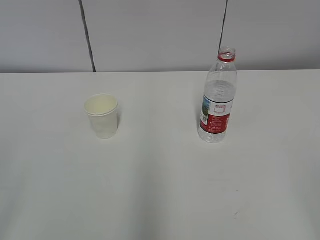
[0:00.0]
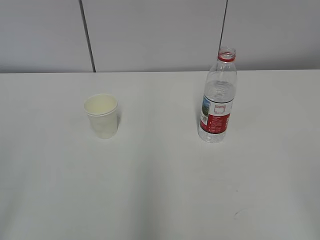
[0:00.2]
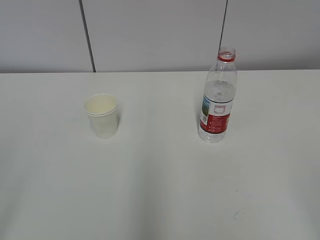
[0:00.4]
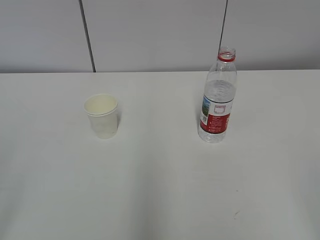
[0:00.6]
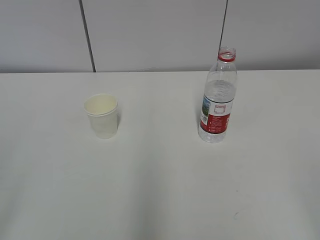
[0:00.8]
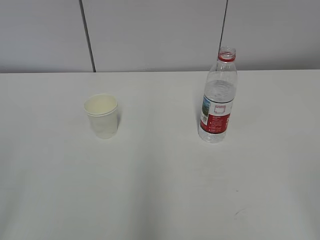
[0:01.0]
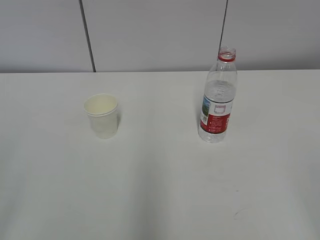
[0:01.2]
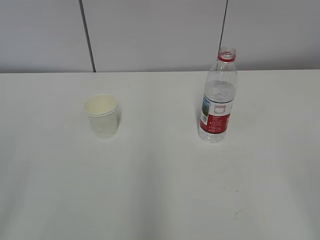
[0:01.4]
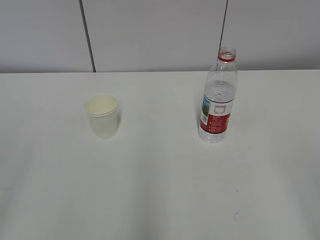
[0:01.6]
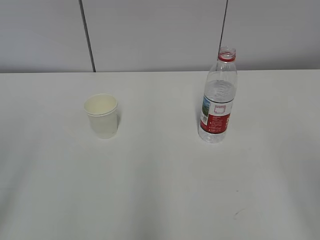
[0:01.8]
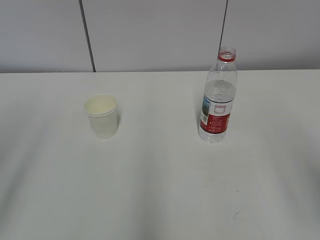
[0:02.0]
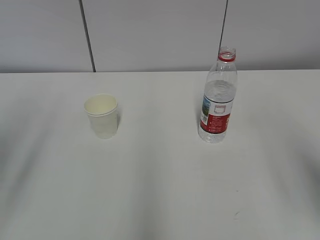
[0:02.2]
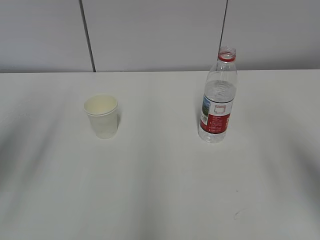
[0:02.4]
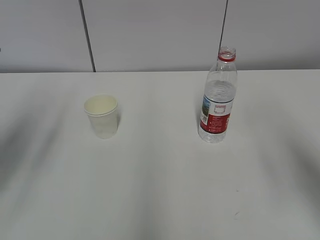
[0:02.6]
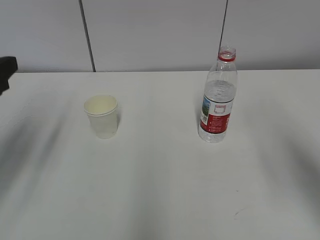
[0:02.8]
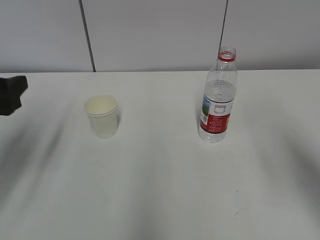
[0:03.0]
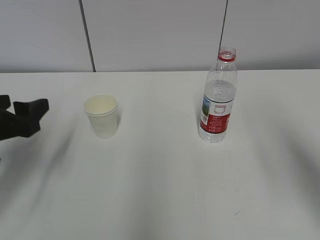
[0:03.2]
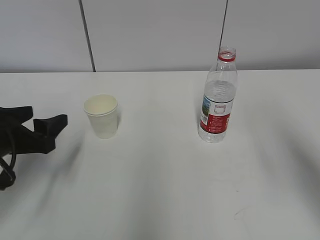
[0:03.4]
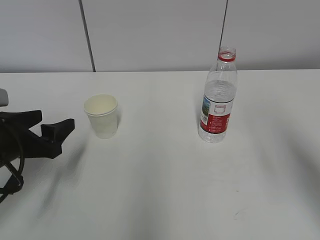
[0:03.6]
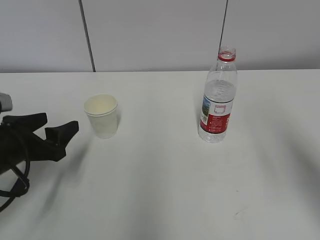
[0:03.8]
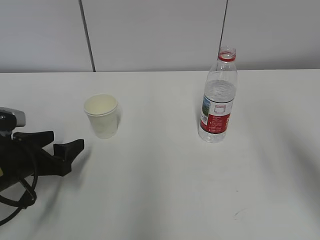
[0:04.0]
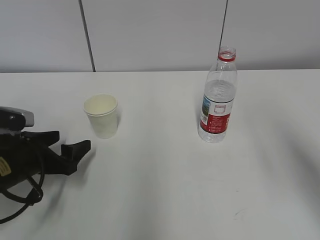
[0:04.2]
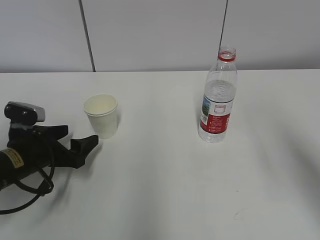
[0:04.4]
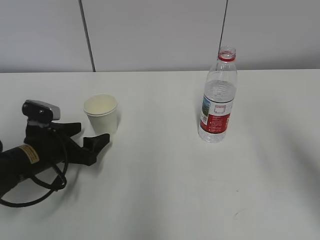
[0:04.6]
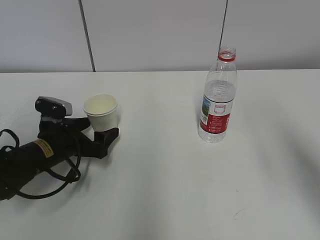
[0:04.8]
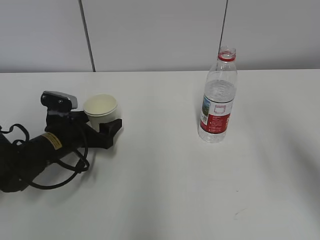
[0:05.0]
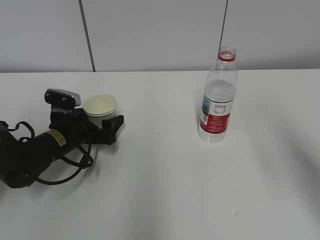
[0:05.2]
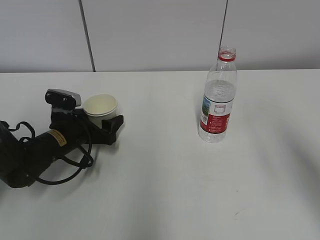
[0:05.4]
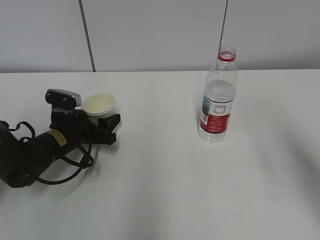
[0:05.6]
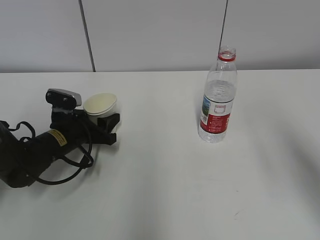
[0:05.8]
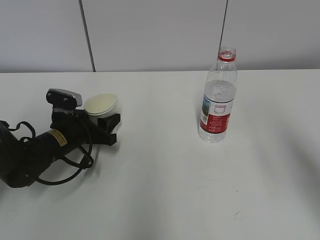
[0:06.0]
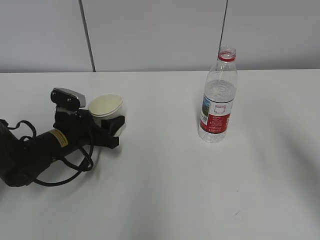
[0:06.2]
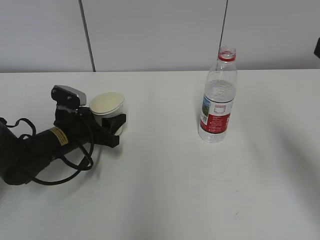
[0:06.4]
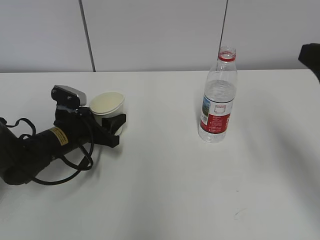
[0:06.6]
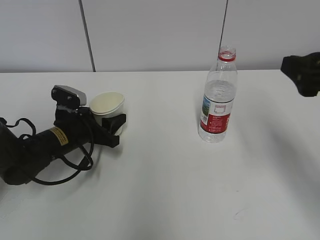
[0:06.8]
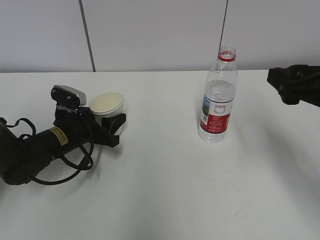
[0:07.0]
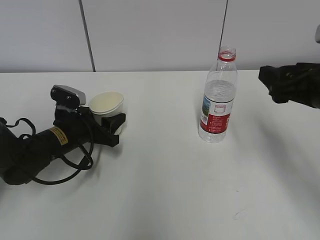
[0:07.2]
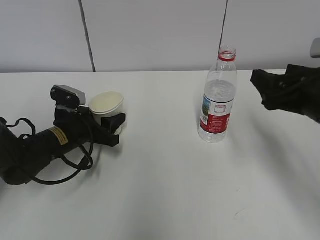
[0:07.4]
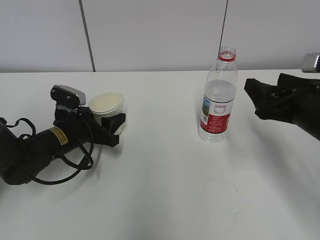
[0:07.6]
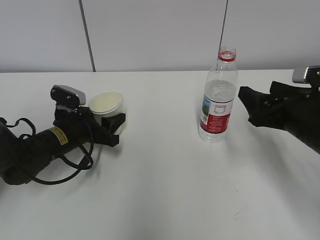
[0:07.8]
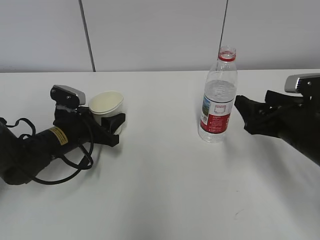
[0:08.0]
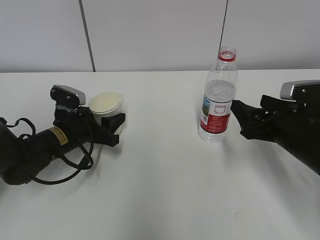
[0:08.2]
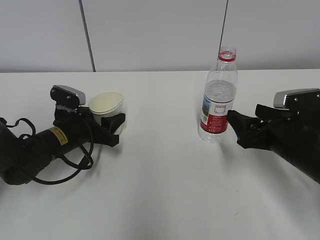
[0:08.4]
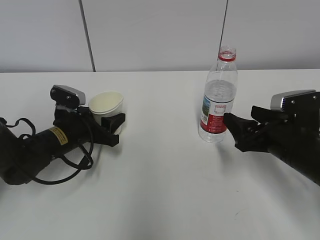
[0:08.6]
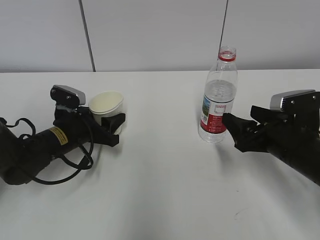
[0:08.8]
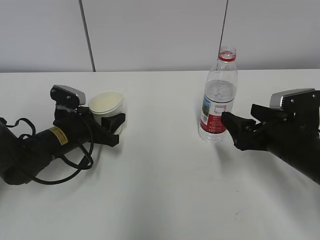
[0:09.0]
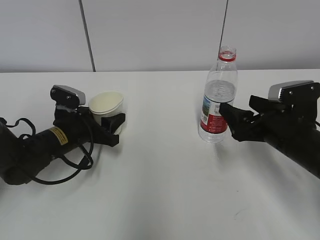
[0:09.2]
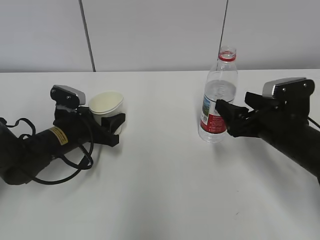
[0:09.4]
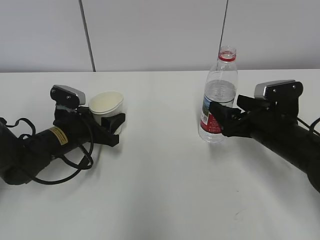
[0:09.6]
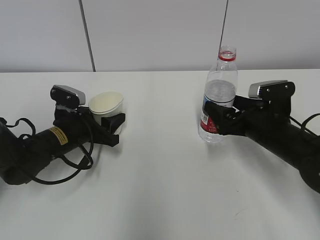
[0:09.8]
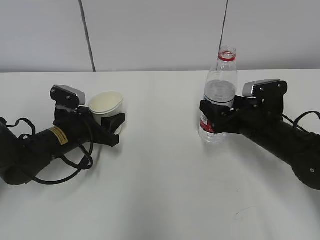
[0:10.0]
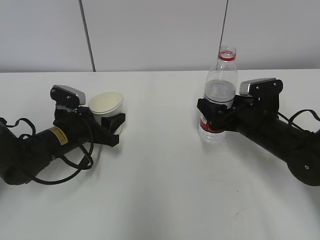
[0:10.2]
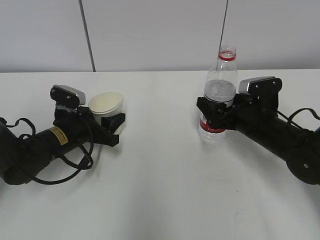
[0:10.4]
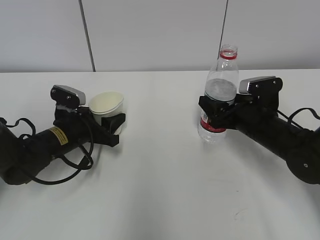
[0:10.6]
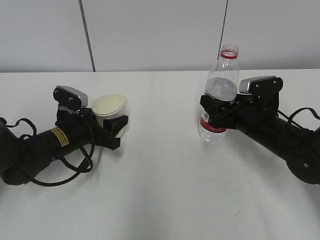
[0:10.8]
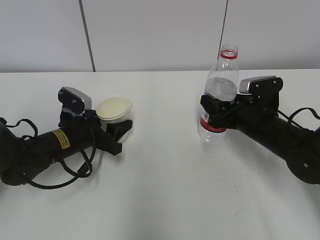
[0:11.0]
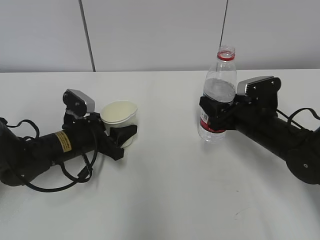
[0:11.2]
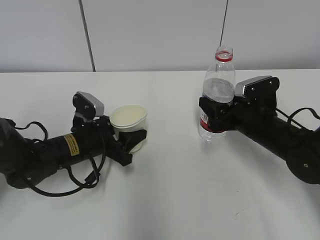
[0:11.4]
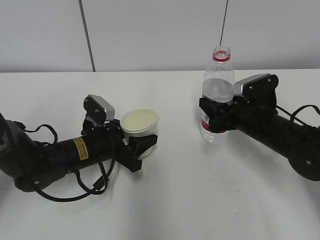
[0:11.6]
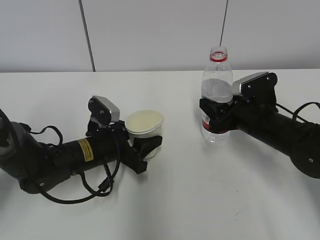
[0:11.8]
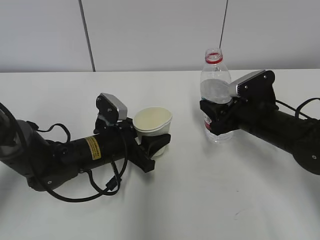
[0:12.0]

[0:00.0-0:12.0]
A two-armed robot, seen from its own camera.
Step, 0:00.0 to 0:05.0: Grab the paper cup with the left hand.
Step, 0:05.2 to 0:09.4: Grab the water bottle with the right hand.
0:01.6 to 0:03.0: The left gripper goes approximately 25 cm forward and downward. The right gripper heads forward, covering approximately 15 cm.
0:03.0 to 0:04.4: The left gripper travels downward by some 15 cm.
0:04.4 to 0:06.0: The left gripper is displaced forward by approximately 5 cm, and closes its fingers.
0:06.0 to 0:07.6: The right gripper moves downward and forward, about 20 cm.
0:07.6 to 0:09.0: The right gripper heads downward, covering roughly 5 cm.
0:09.0 to 0:10.4: The right gripper shifts approximately 5 cm forward.
0:10.4 to 0:12.0: The right gripper closes, while the left gripper travels to the right by about 10 cm.

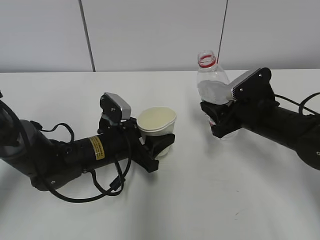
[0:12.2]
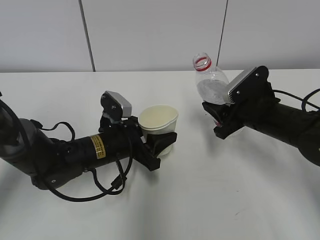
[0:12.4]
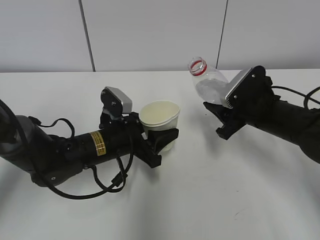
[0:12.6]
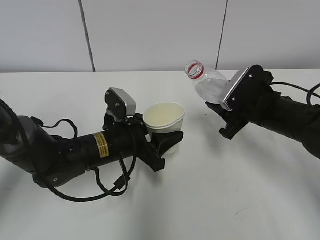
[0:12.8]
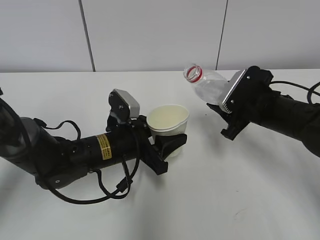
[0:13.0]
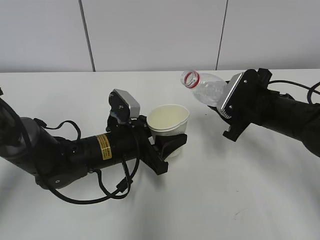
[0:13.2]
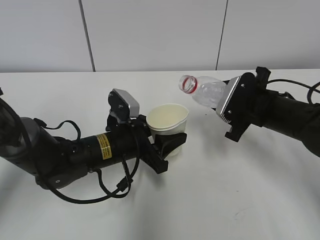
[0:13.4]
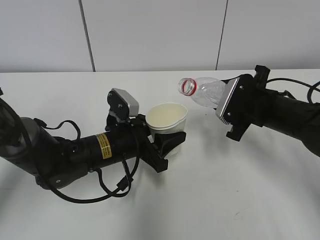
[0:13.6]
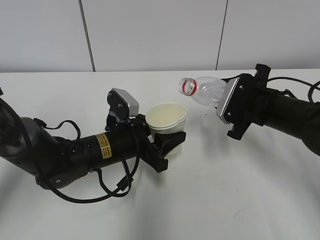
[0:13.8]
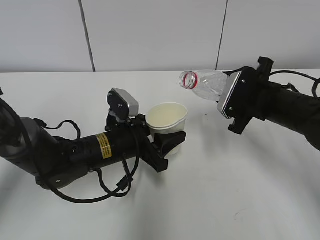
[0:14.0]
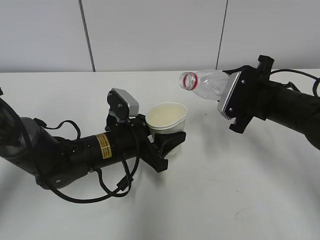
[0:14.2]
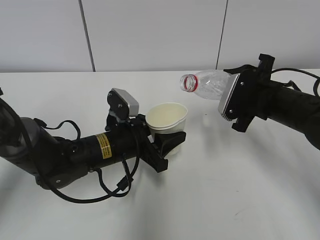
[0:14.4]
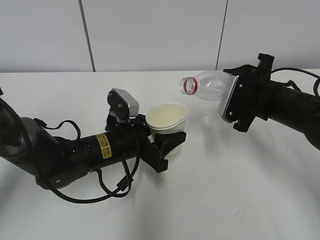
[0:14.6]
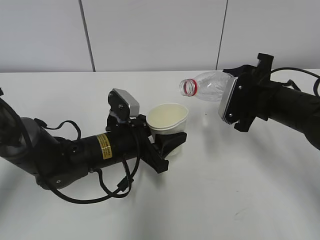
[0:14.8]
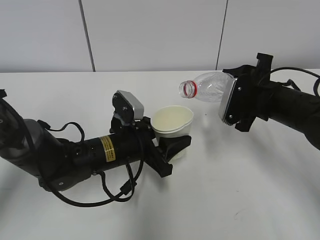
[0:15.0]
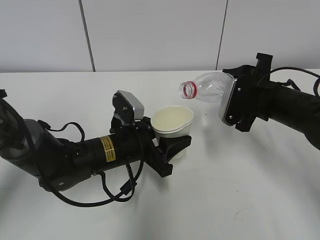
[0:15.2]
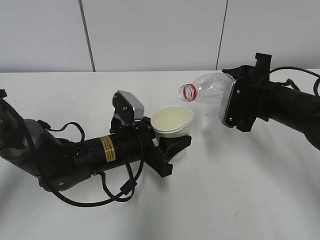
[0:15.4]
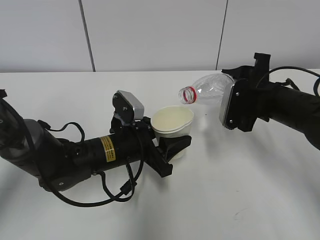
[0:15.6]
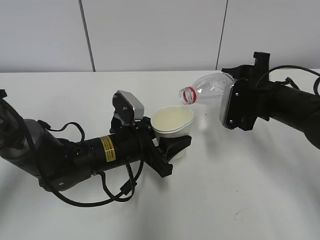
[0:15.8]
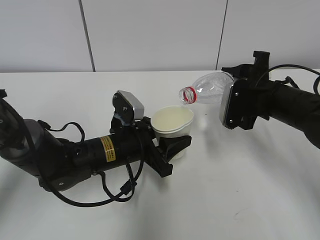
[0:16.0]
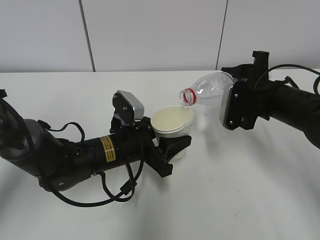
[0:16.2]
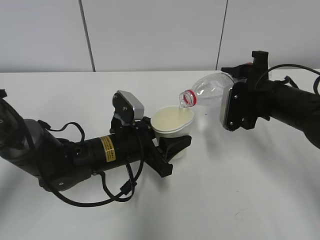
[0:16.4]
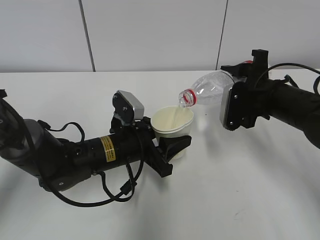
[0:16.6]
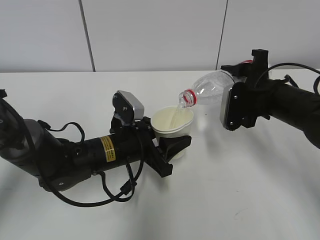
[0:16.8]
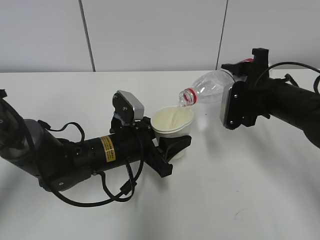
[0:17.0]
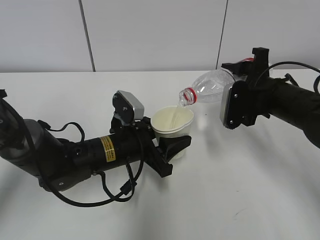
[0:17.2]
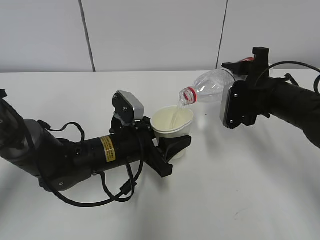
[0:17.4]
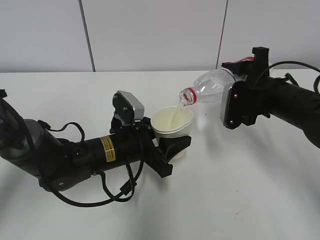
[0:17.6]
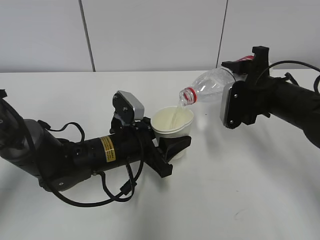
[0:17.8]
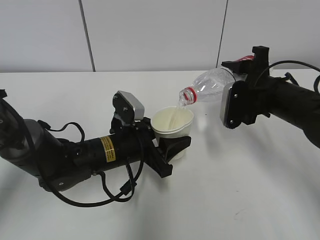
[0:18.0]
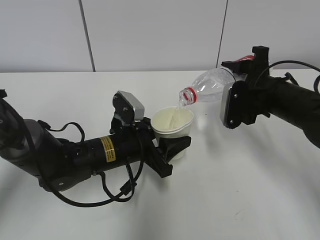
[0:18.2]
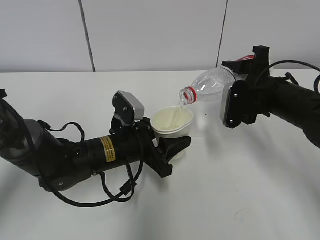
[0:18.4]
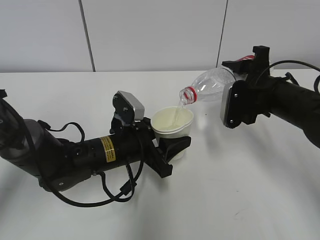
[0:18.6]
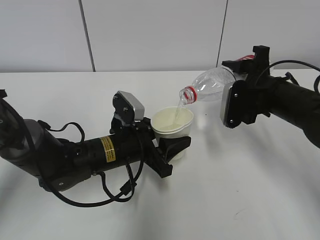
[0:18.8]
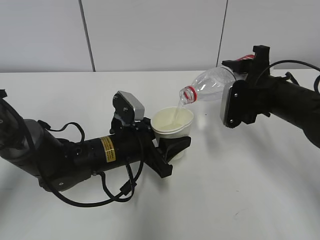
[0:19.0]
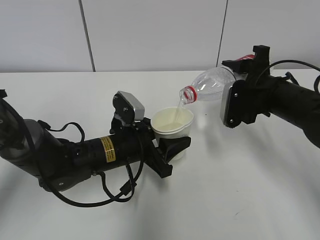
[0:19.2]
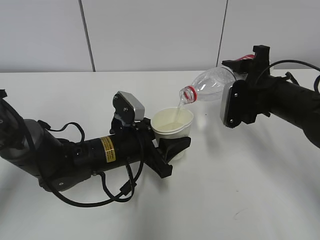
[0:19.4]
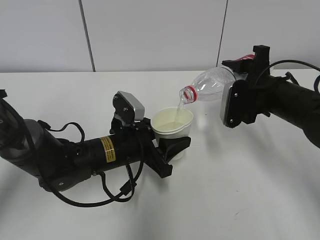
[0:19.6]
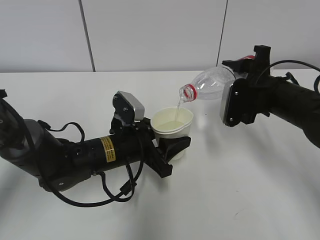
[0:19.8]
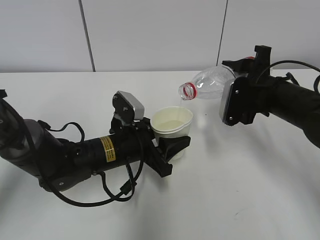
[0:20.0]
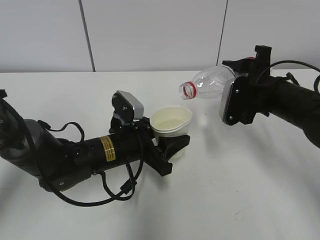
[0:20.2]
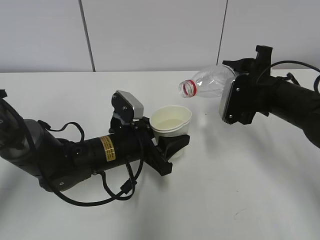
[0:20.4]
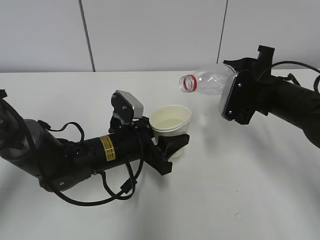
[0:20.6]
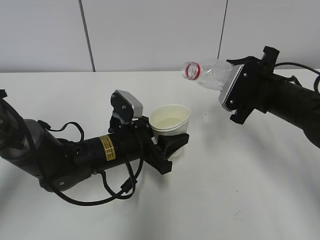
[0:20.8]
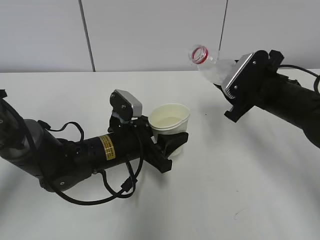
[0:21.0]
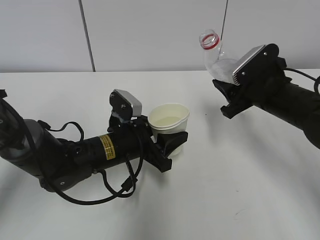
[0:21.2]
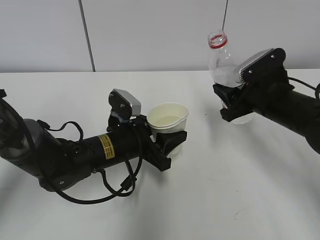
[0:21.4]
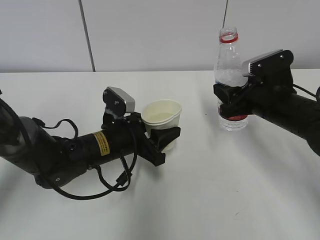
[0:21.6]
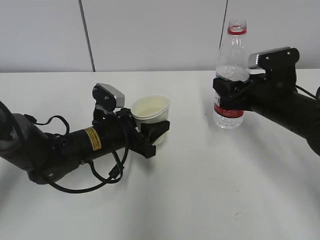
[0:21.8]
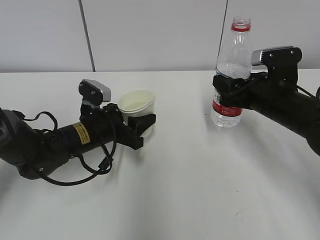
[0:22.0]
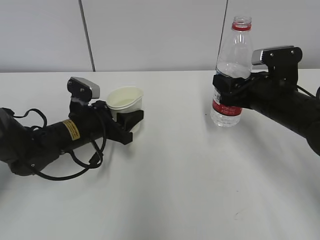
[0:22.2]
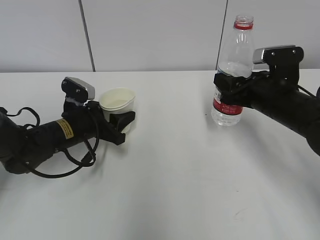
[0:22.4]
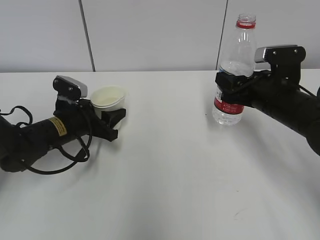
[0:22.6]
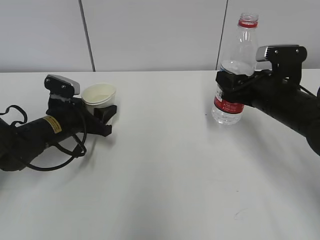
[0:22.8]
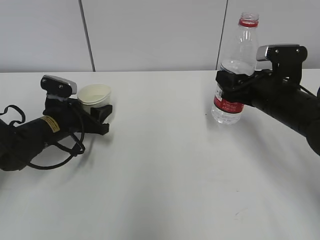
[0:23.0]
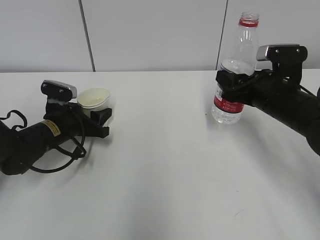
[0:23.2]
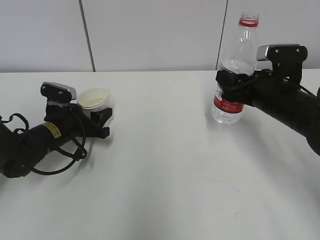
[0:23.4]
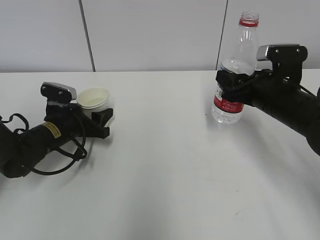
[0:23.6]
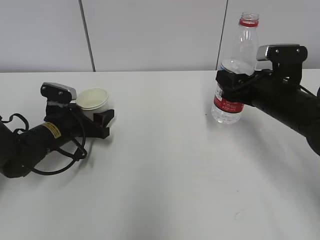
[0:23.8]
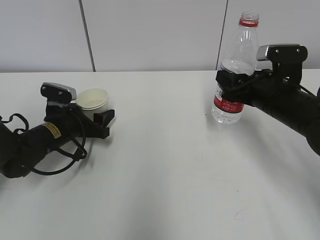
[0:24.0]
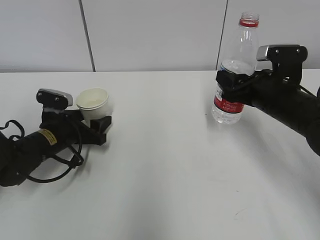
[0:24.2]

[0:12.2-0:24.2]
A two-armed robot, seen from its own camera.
Step, 0:13.6 to 0:16.6: Fill water with the left hand.
Step, 0:13.6 to 0:16.6: Pour water with the right hand.
Step, 0:16.8 to 0:18.2: Collect water with the right hand.
Step, 0:20.2 to 0:23.0: Place the water bottle with the right hand.
0:13.8 to 0:15.2: The grippers make only small movements.
0:15.2 to 0:16.6: The grippers move only a little.
0:16.6 to 0:19.8: Both grippers stay about where they are.
0:21.2 to 0:22.6: The left gripper moves to the left and forward, some 10 cm.
0:22.6 to 0:24.2: There are only small adjustments of the grippers.
